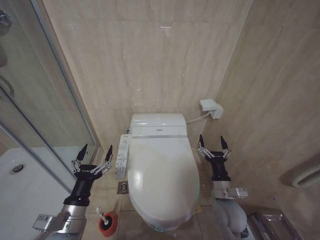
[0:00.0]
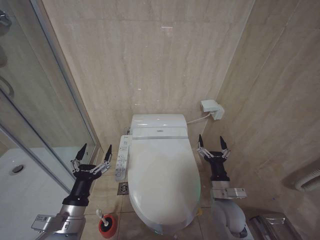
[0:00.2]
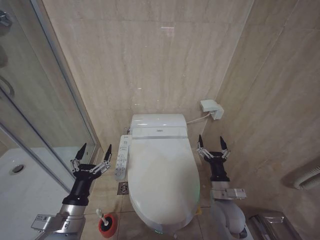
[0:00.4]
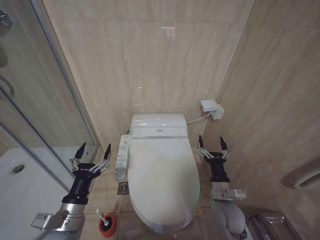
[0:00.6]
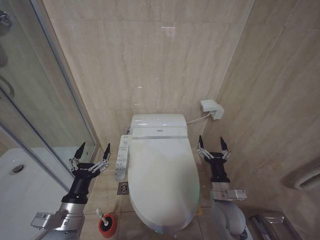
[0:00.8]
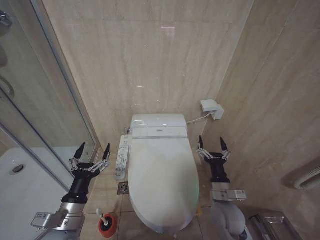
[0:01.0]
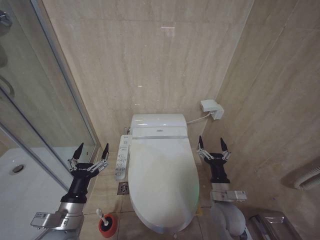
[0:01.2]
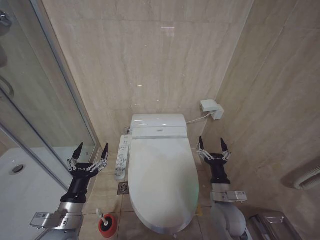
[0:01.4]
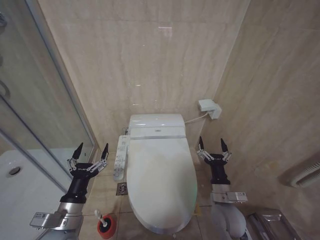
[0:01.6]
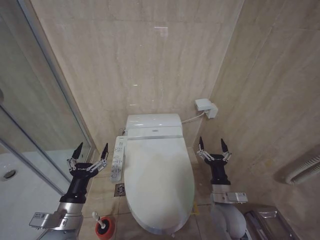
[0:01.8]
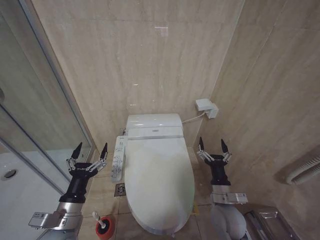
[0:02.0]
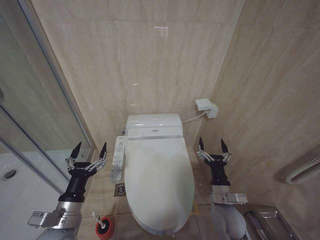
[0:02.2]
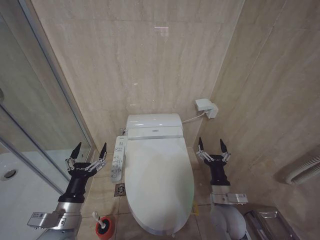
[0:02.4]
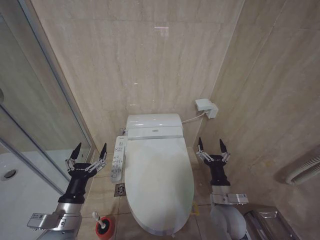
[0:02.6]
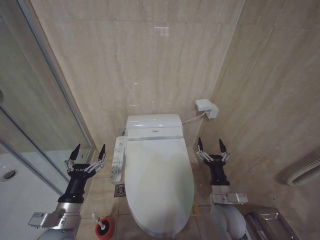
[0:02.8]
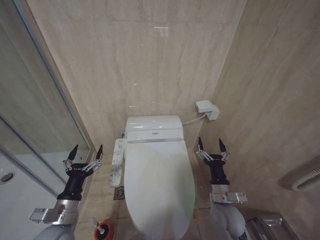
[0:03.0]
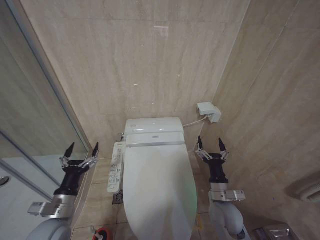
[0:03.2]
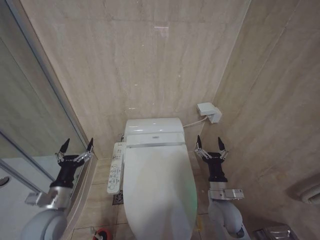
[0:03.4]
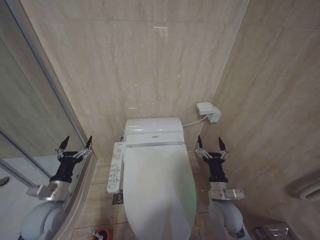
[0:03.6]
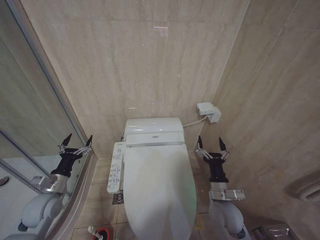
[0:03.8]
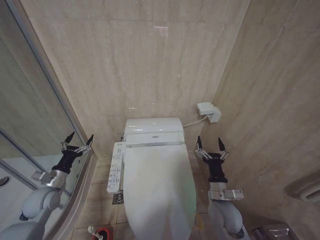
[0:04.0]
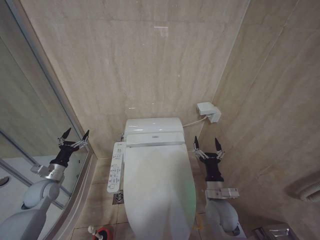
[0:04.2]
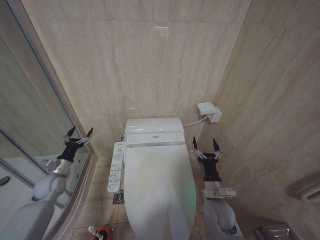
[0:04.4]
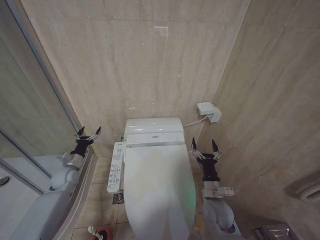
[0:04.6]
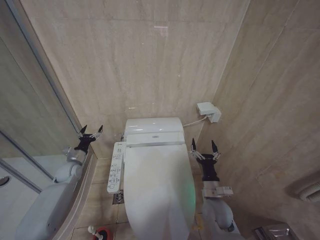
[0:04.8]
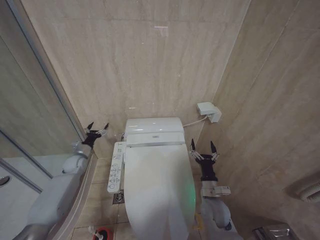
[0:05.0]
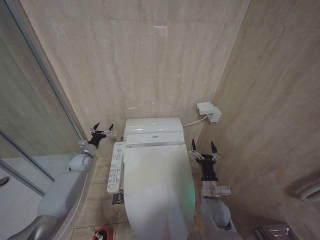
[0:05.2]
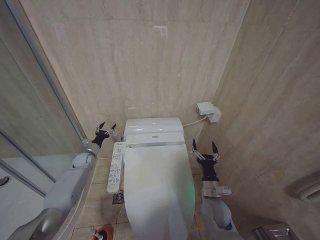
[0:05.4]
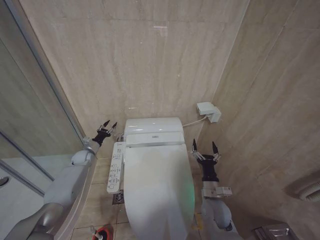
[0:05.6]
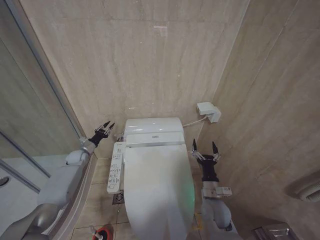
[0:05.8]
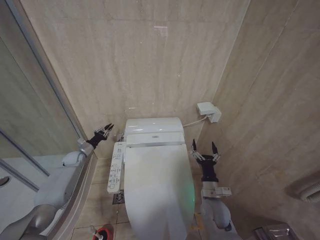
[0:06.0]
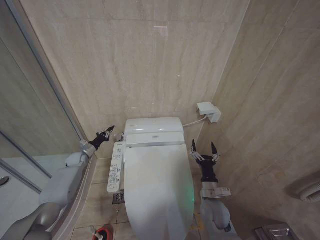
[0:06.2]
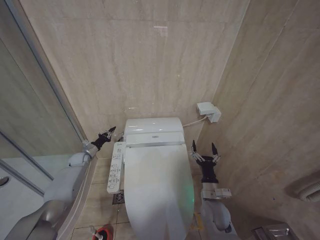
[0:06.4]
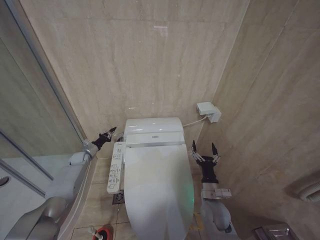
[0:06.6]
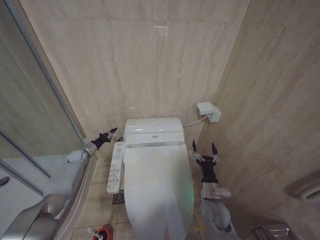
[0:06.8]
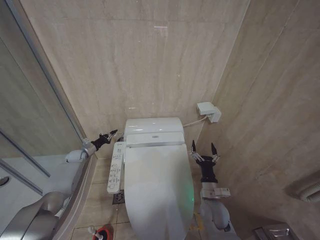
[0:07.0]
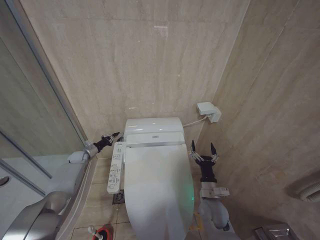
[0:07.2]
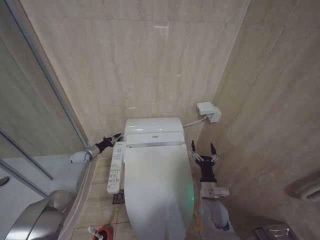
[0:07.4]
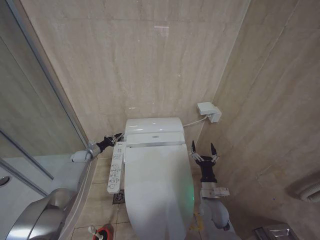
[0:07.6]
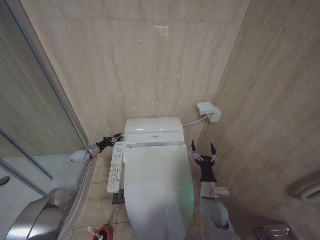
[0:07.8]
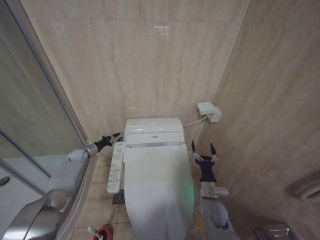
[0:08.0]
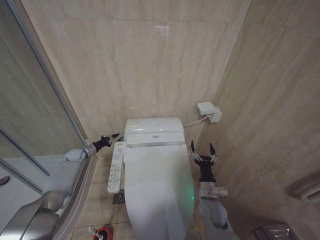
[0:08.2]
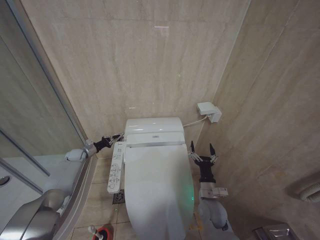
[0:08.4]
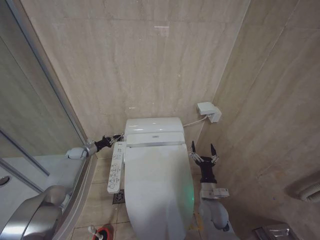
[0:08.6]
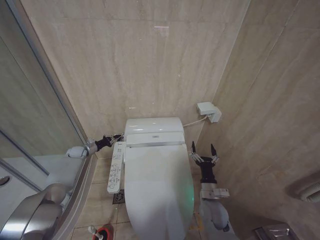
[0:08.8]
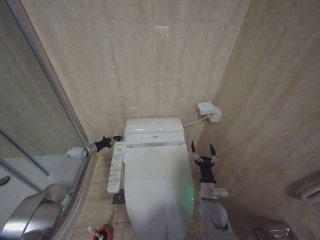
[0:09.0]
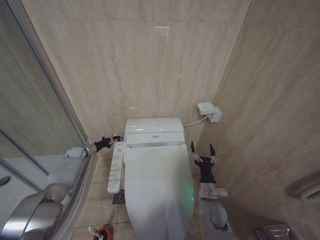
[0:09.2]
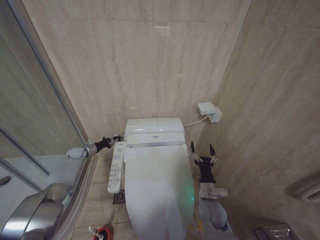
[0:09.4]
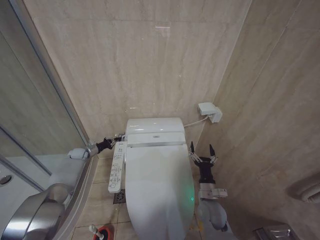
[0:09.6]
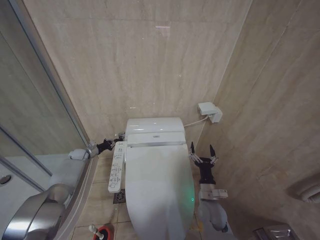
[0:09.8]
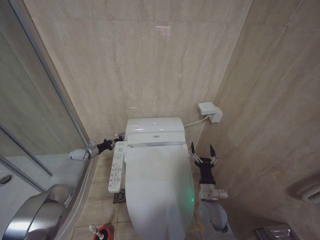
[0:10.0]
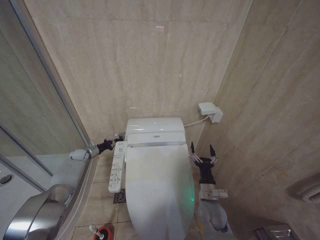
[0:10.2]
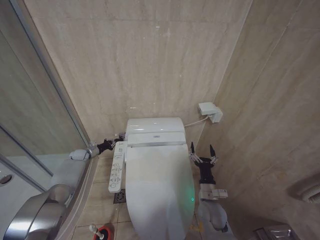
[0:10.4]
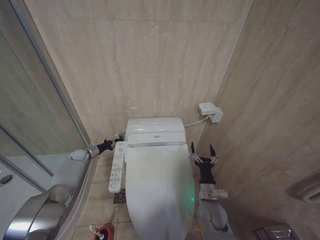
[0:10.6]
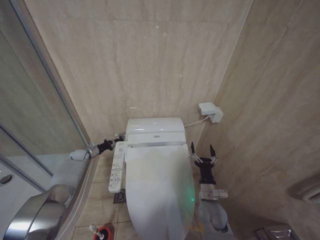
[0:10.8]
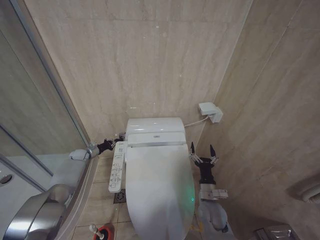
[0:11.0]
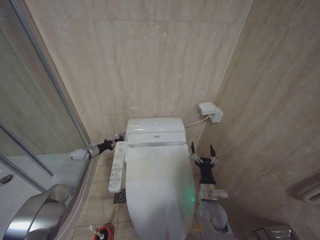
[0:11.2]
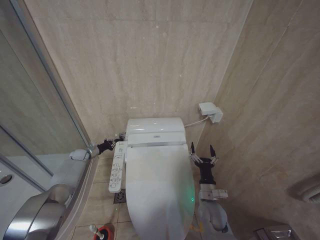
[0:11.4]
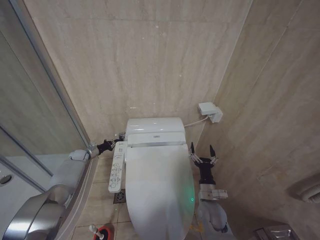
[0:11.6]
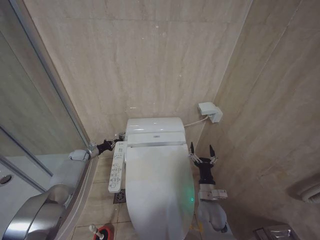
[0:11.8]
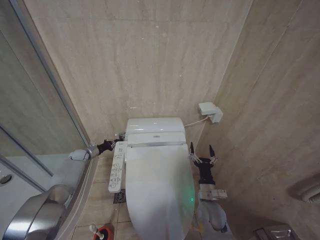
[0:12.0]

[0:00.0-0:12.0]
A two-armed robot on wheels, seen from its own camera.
Task of the whole recording: Open the toilet lid, clean the toilet bowl with a toilet brush, close the toilet lid, and flush.
0:00.0 to 0:01.6: Both grippers stay about where they are.
0:01.6 to 0:03.0: The grippers move only a little.
0:03.0 to 0:04.4: The left gripper moves forward and to the left, roughly 25 cm.
0:04.4 to 0:06.0: The left gripper goes approximately 15 cm forward, and closes up.
0:06.0 to 0:07.6: The grippers stay close to where they were, moving slightly.
0:07.6 to 0:10.4: The grippers move only a little.
0:10.4 to 0:12.0: Both grippers stay put.

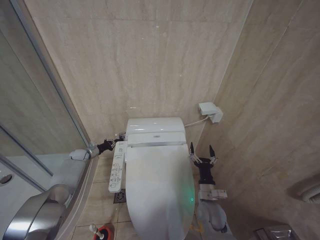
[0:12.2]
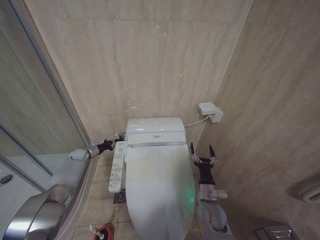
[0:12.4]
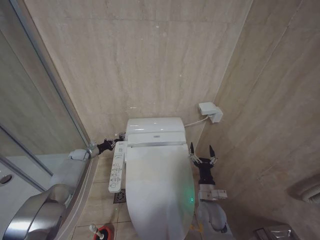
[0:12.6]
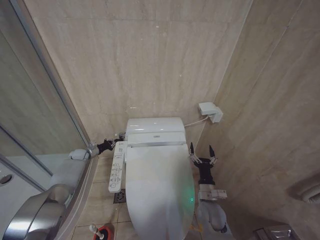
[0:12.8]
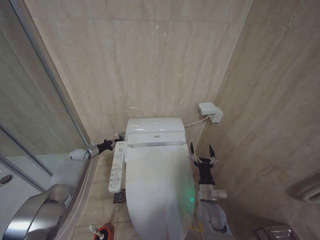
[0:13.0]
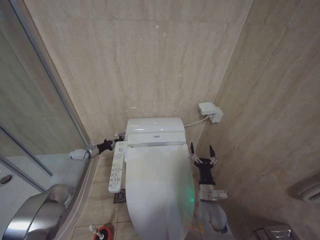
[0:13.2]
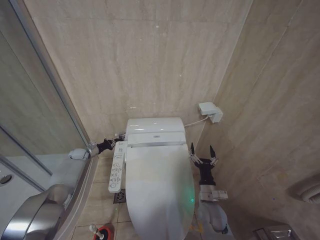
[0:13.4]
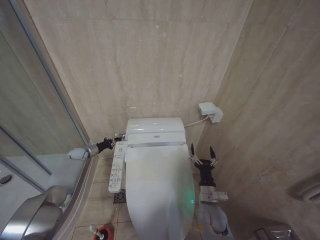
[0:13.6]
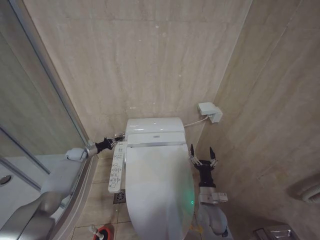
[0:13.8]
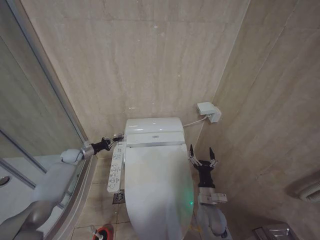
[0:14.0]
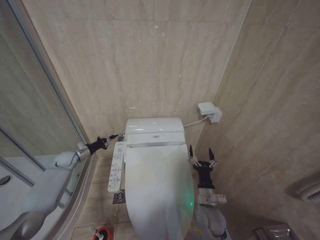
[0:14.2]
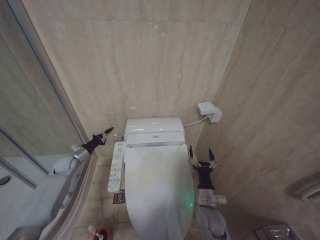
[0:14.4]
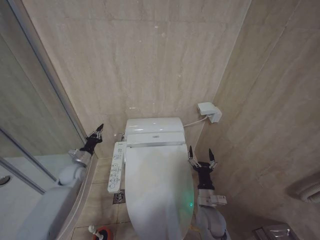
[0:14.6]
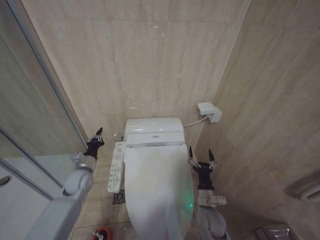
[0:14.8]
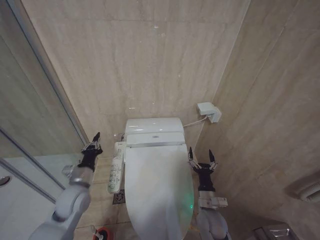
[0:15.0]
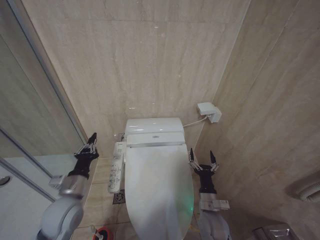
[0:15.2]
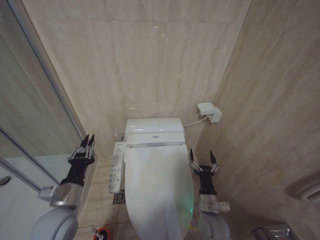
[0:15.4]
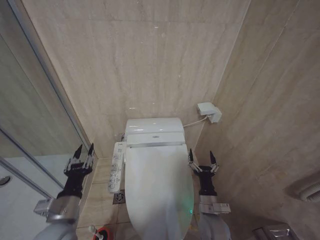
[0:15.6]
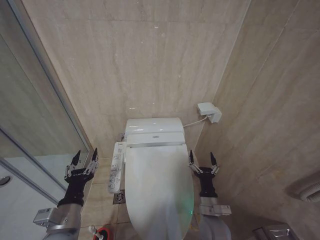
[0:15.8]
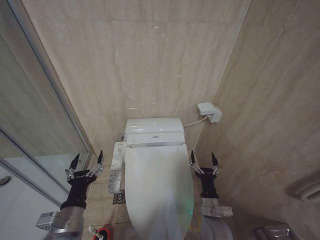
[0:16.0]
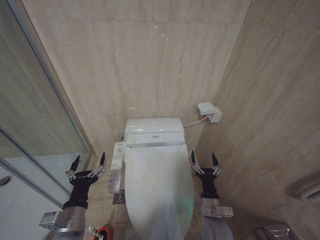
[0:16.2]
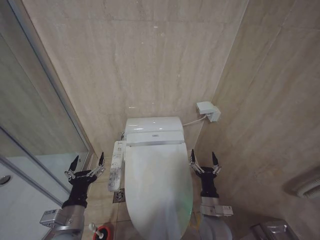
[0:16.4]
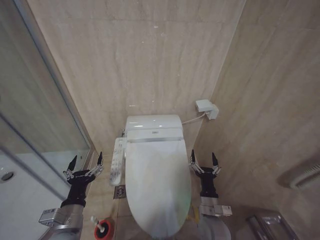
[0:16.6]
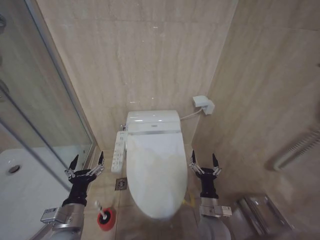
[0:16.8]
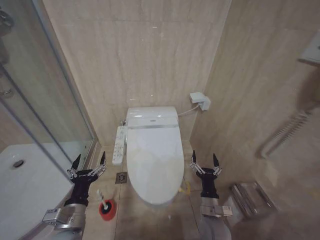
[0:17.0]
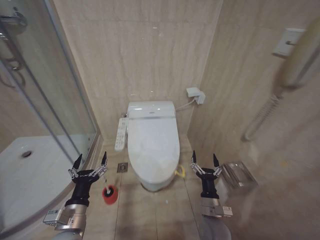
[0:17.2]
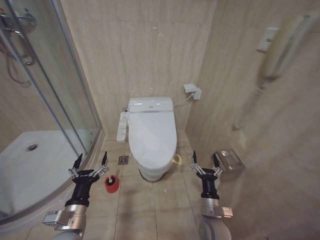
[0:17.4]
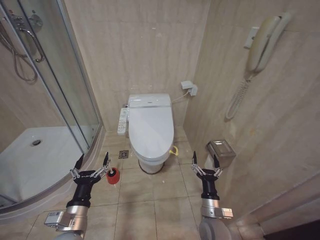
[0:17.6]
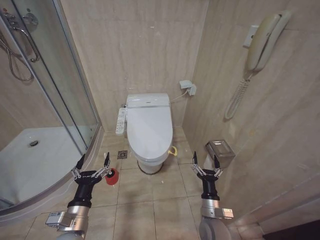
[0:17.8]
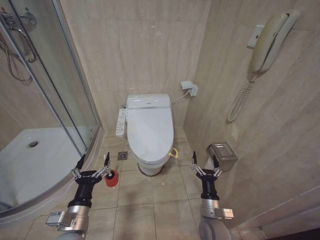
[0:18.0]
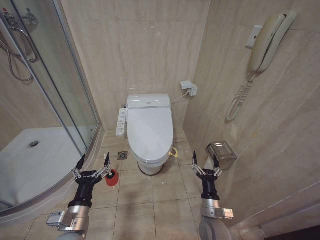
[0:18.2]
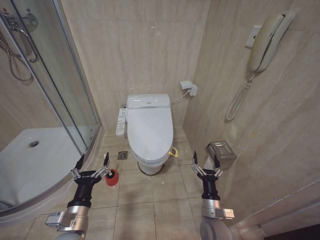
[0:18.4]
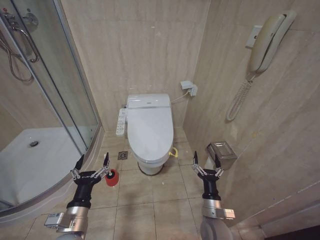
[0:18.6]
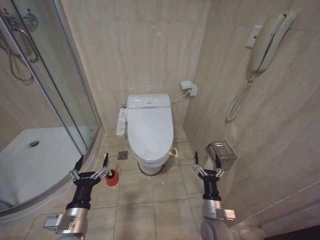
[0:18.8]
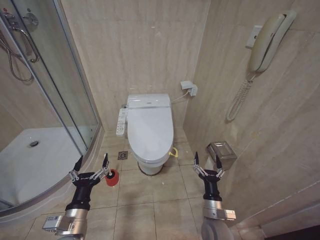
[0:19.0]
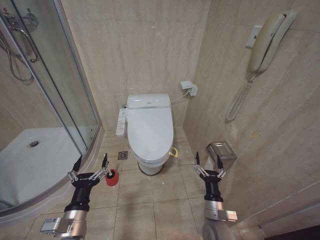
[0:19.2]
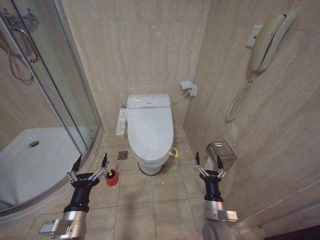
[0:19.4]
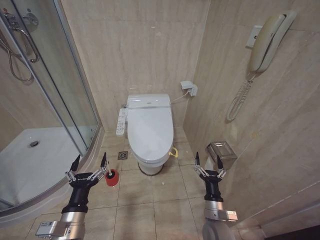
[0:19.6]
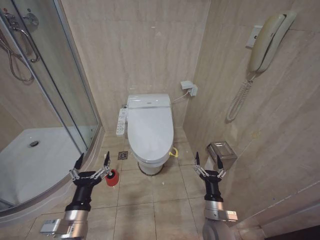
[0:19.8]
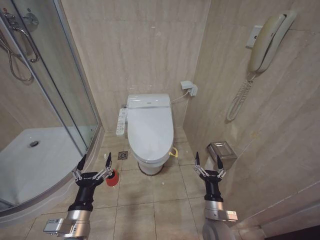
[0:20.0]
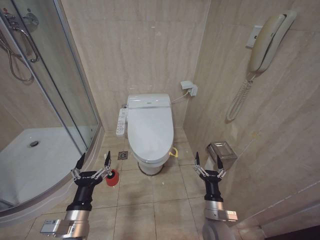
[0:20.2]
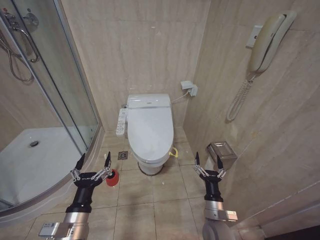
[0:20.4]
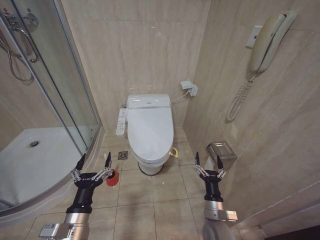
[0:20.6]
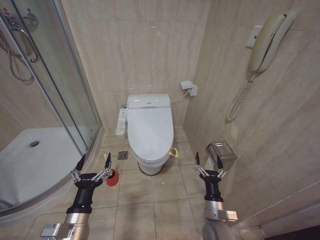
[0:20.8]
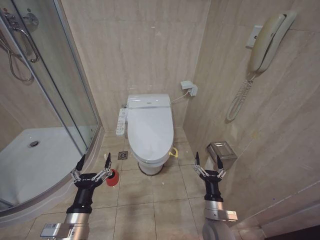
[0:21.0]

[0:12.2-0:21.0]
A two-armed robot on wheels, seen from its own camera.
Task of the whole recording: Open the toilet lid, clean the toilet bowl with a toilet brush, close the toilet lid, and flush.
0:12.2 to 0:13.6: Neither gripper changes place.
0:13.6 to 0:15.2: The left gripper moves backward and to the right, approximately 35 cm.
0:15.2 to 0:16.6: The left gripper is displaced backward by roughly 10 cm, and opens.
0:18.0 to 0:19.6: There are only small adjustments of the grippers.
0:19.6 to 0:21.0: Neither gripper changes place.

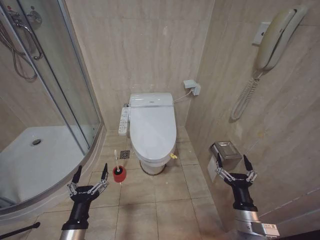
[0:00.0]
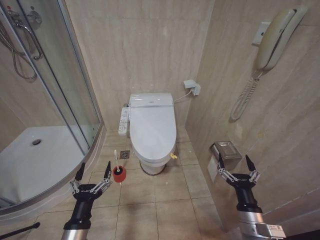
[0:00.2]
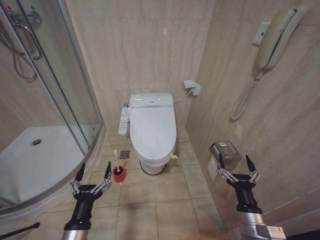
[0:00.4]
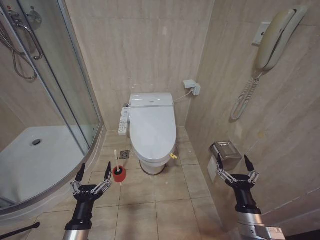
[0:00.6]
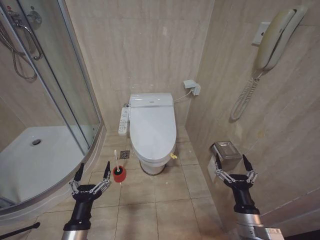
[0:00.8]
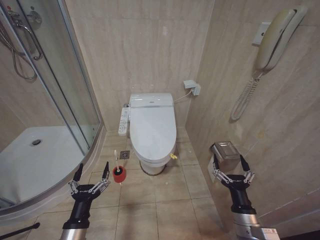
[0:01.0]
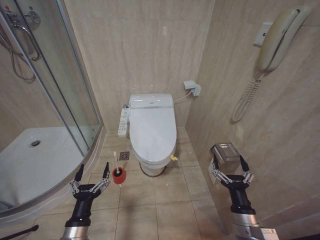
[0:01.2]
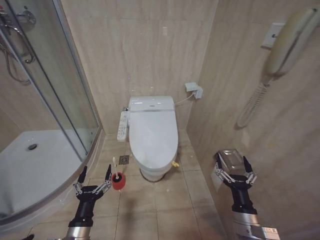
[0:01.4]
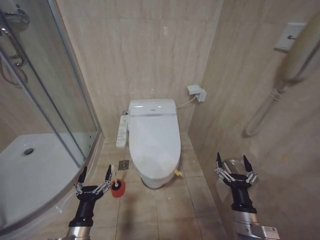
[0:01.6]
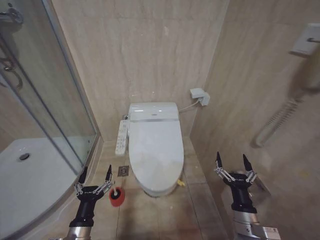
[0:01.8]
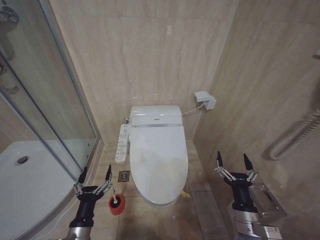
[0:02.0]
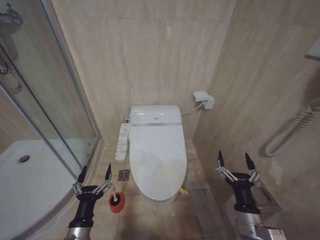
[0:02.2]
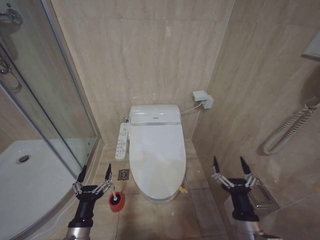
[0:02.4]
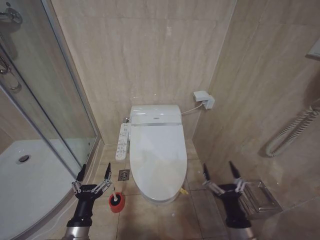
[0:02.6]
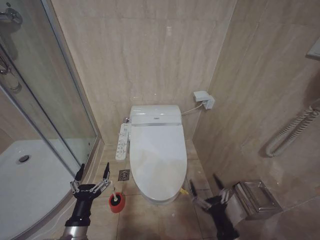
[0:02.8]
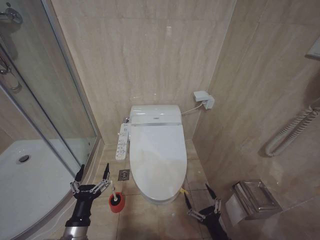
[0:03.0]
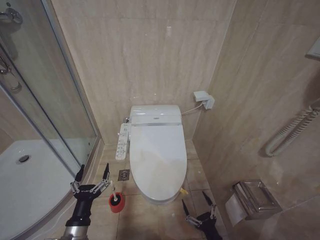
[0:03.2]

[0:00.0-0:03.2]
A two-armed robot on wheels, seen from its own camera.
Task of the whole recording: Open the toilet lid, clean the toilet bowl with a toilet brush, close the toilet lid, and flush.
0:01.6 to 0:03.2: The right gripper heads downward and backward, covering roughly 15 cm.
